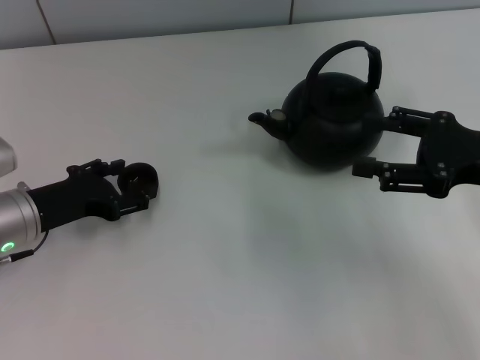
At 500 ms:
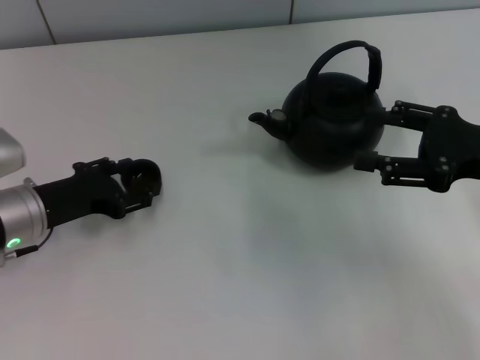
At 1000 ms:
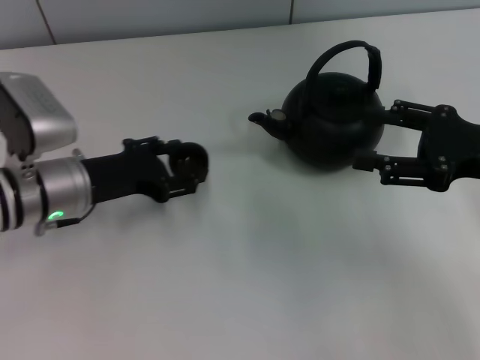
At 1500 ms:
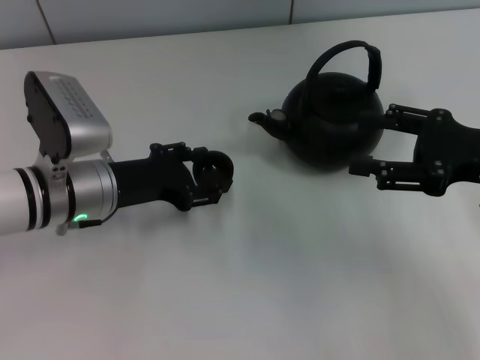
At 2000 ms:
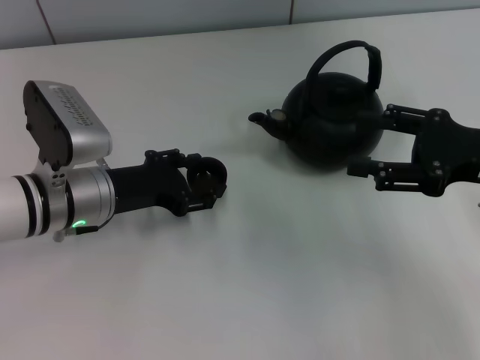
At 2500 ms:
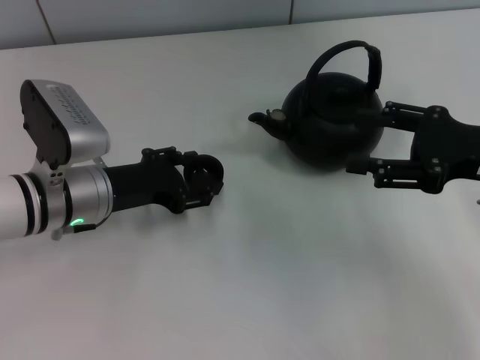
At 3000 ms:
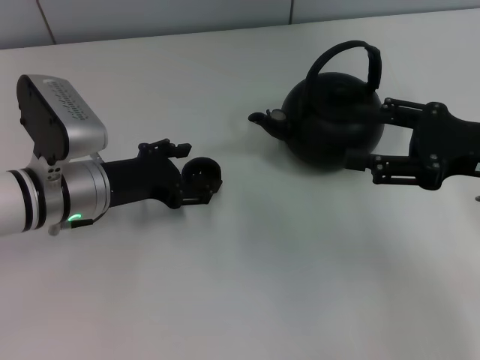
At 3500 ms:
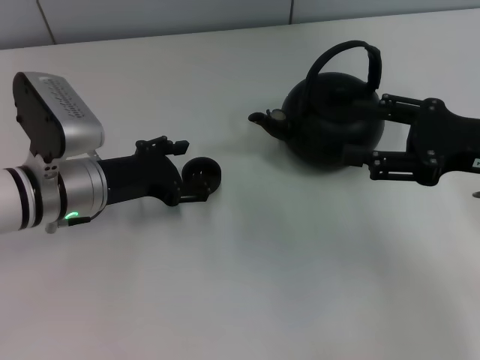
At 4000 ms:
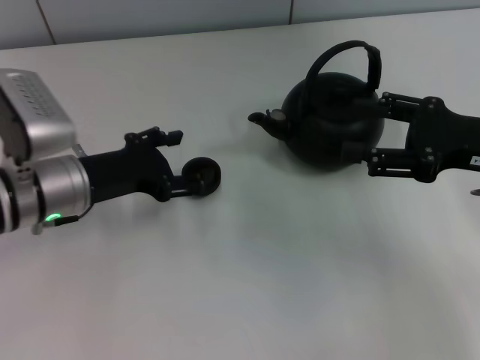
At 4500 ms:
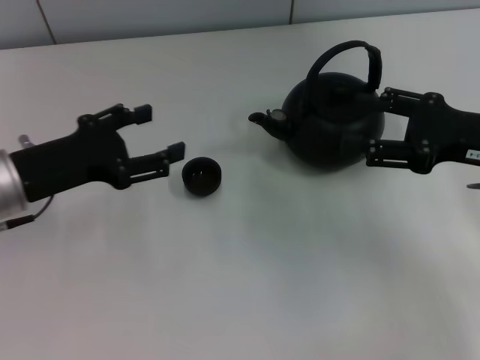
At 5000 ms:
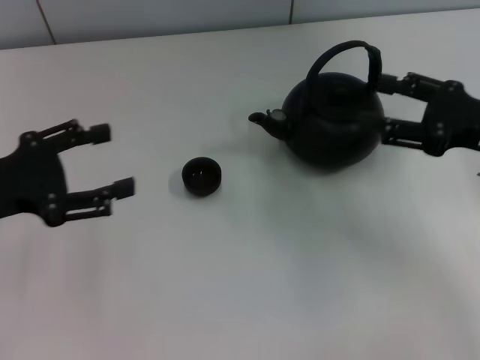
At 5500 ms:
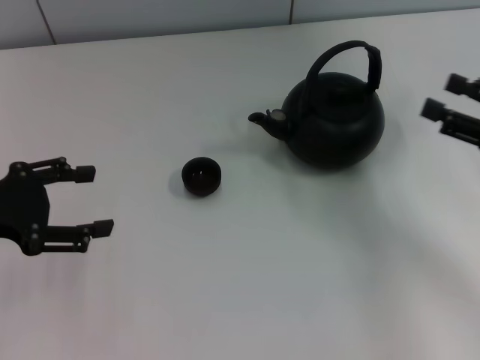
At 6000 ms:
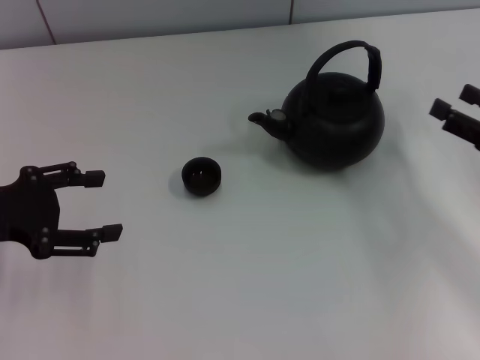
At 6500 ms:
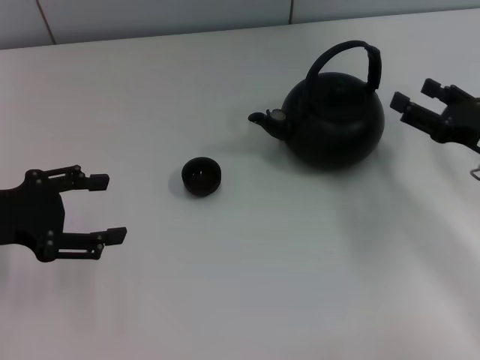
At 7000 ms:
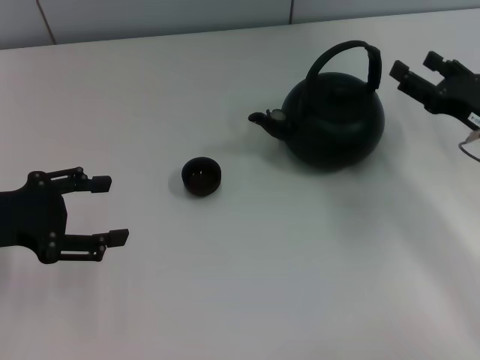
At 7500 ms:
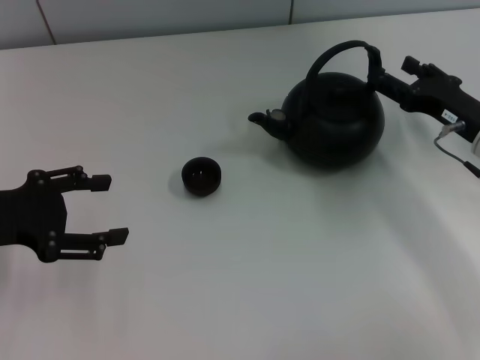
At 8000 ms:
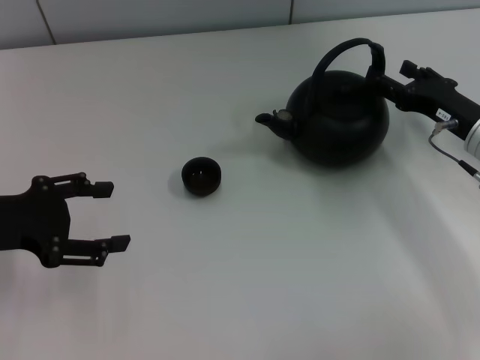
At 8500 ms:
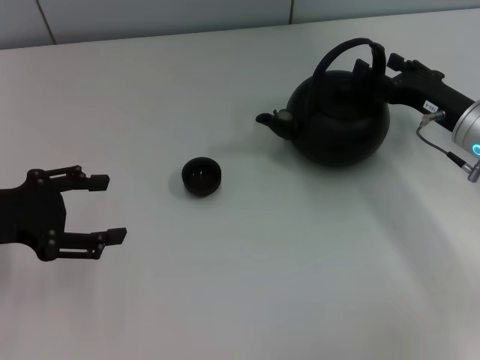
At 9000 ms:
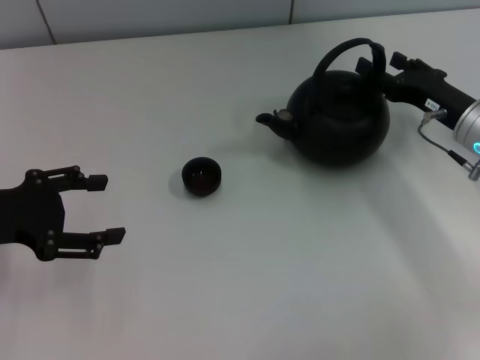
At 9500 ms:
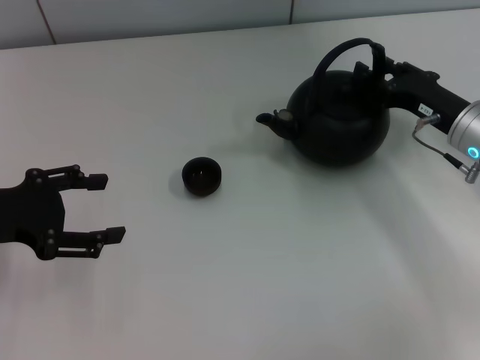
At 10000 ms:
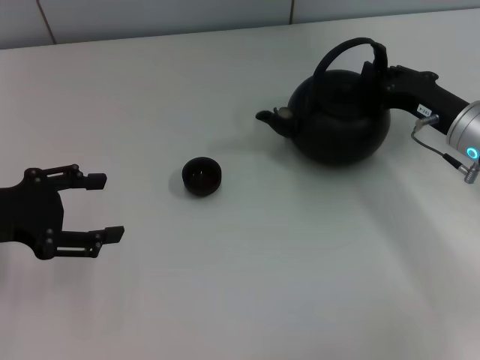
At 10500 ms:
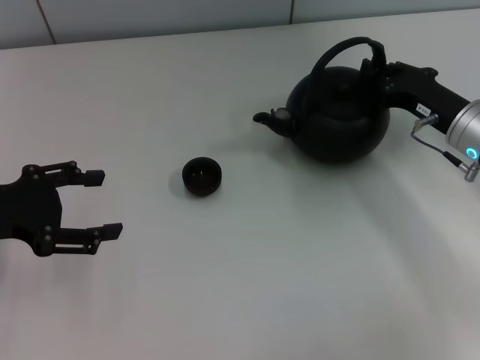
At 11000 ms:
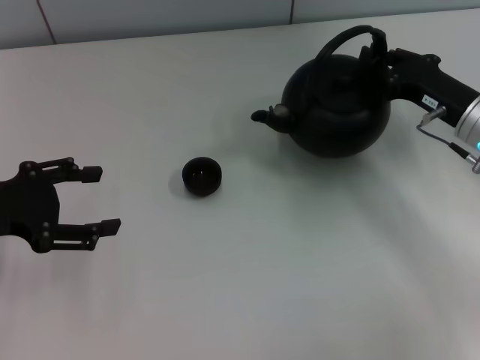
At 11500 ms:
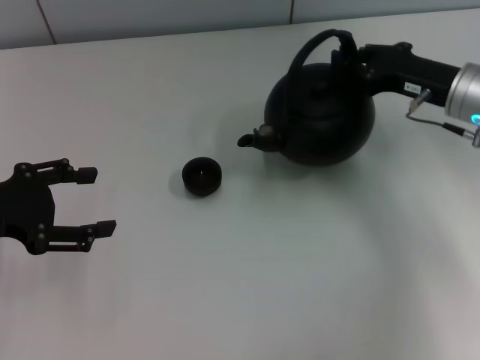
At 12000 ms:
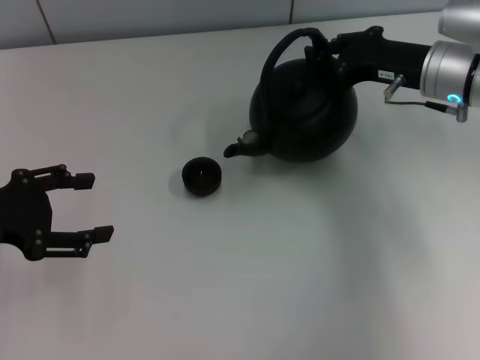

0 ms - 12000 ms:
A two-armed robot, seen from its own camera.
Task of the whole recording: Grasp the handle of the teapot with one hand and pour tea into the teacup.
Step, 2000 ms - 3500 ms: Place the teacup in the center of view with the left gripper.
Step, 4000 ms - 11000 ms: Pick up the teapot with the right gripper.
0 ms - 2000 ms: The left gripper is displaced to the right by approximately 5 cm, and closes its fingers.
2000 ms - 4000 ms: The left gripper opens its fingers.
4000 ms - 6000 ms: The left gripper heads to the left, covering some 10 cm, while the right gripper is displaced to the right and downward by some 10 cm.
6000 ms - 8000 ms: The right gripper heads forward and to the left, covering approximately 10 cm.
8000 ms - 10000 ms: The right gripper closes.
10000 ms - 12000 ms: The right gripper goes about 5 cm upward.

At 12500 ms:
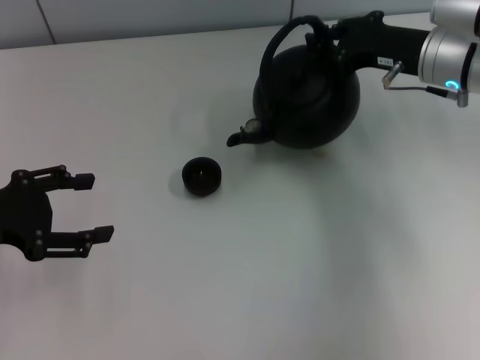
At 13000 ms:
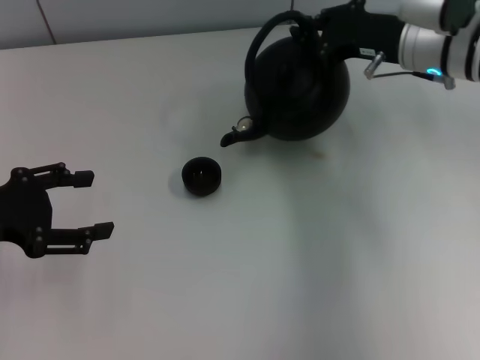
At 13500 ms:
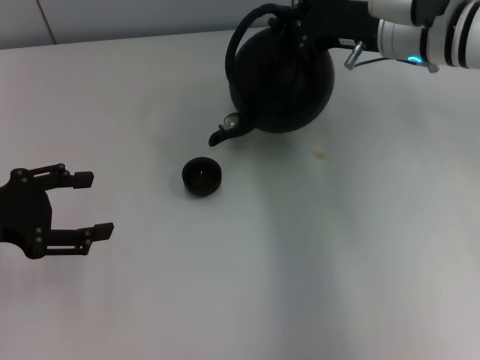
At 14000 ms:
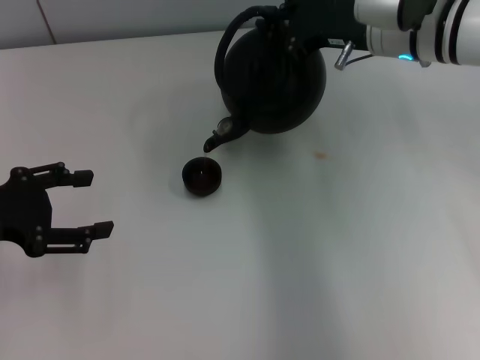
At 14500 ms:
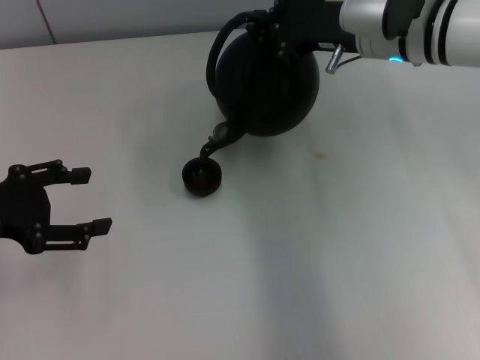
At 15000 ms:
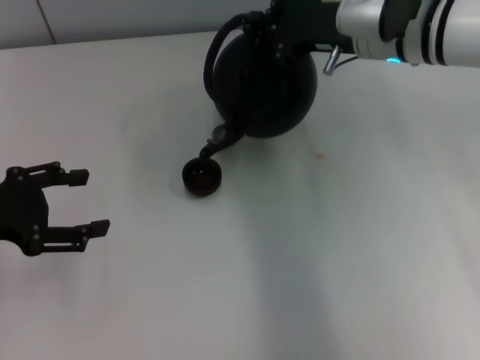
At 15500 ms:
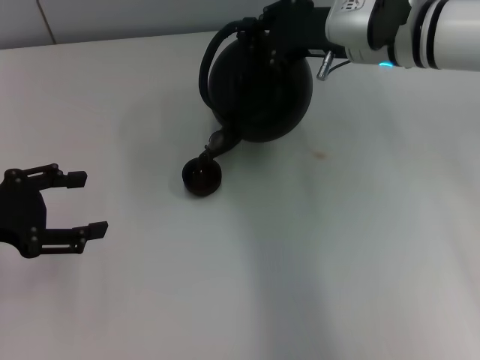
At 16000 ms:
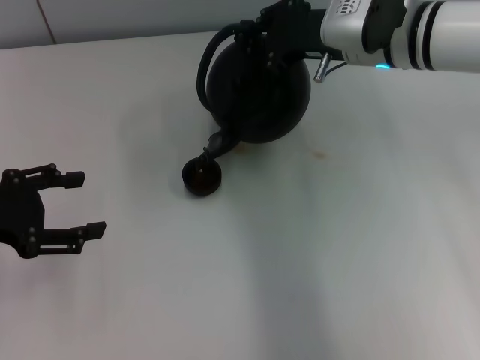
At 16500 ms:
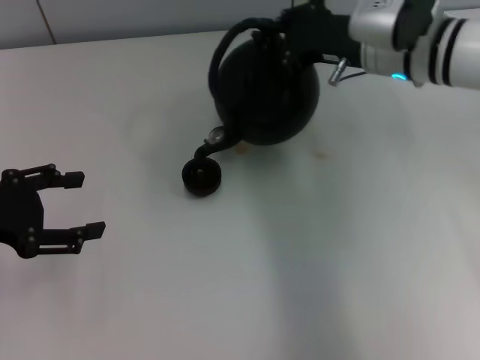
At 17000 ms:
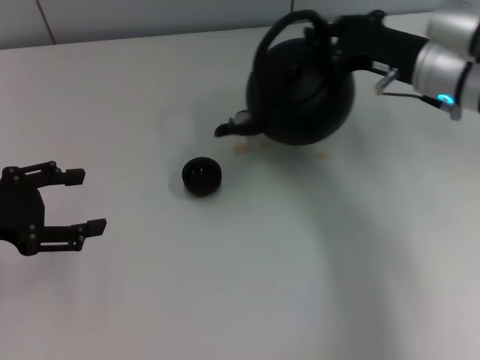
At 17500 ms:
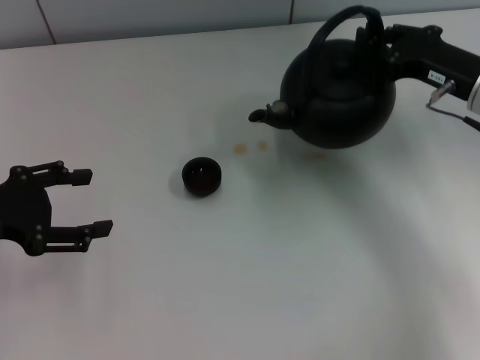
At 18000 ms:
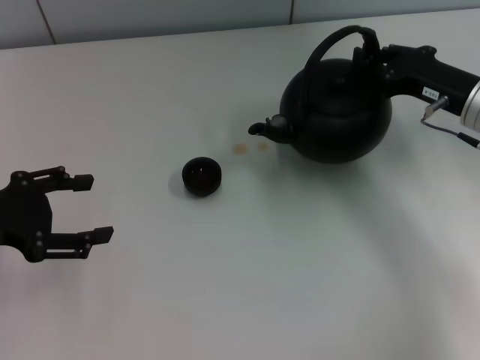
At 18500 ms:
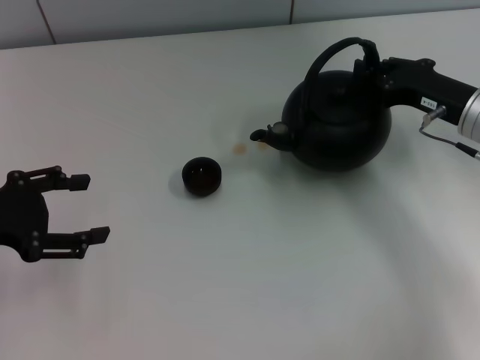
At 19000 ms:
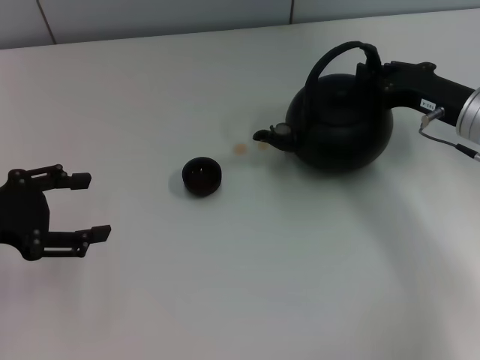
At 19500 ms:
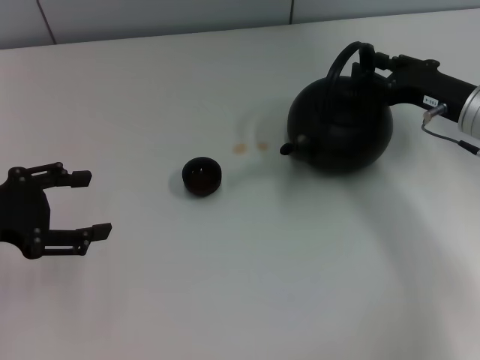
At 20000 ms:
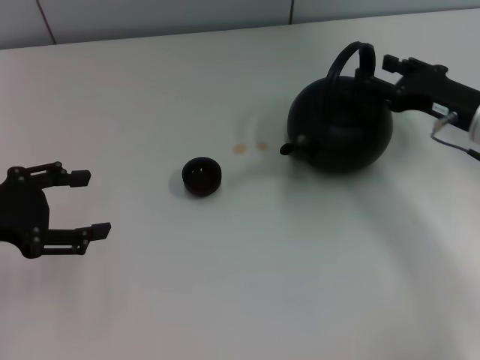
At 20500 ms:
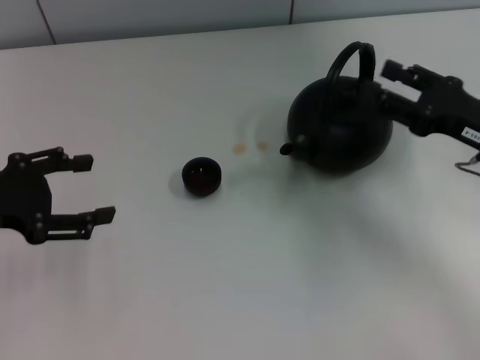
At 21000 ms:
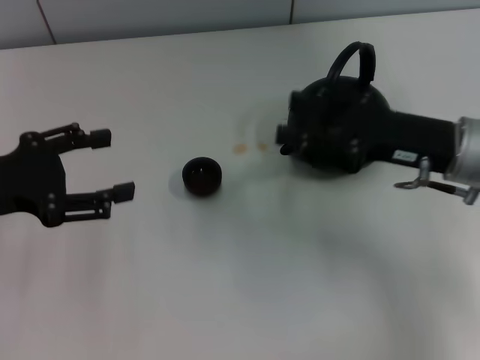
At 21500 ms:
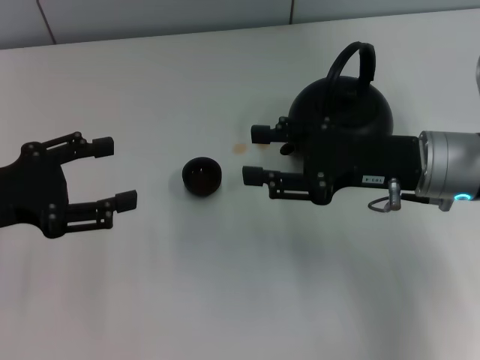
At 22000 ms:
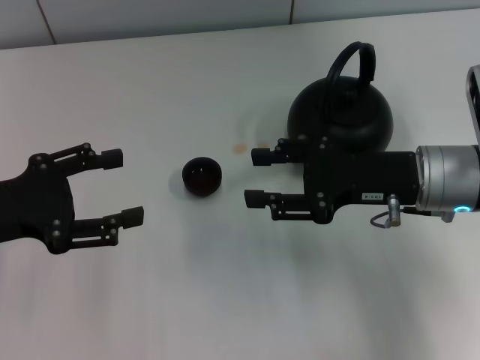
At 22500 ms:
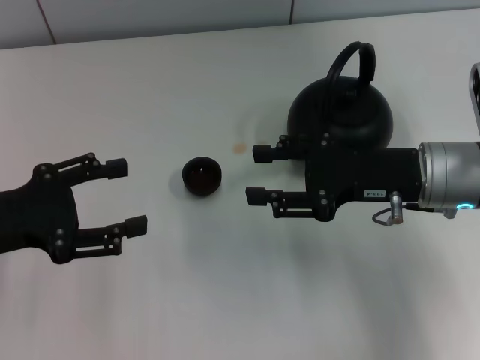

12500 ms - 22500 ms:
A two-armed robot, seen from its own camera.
Task of the whole recording: Grasp the handle of the teapot with one hand and pour tea into the teacup.
Step, 17500 ms - 20000 ms: Put down the teapot with the right gripper.
12500 ms - 14500 ms: The right gripper moves to the left, about 5 cm.
14500 ms - 16500 ms: The grippers stay close to where they were, moving slightly.
16500 ms - 18500 ms: The right gripper is displaced to the right, downward and backward by approximately 15 cm.
18500 ms - 20500 ms: The right gripper travels backward by roughly 5 cm, and opens up.
20500 ms - 22500 ms: The right gripper goes about 10 cm to the left.
